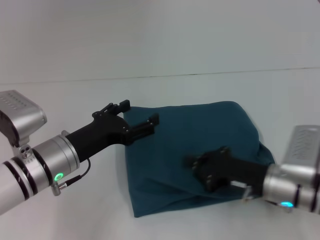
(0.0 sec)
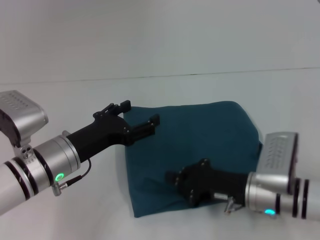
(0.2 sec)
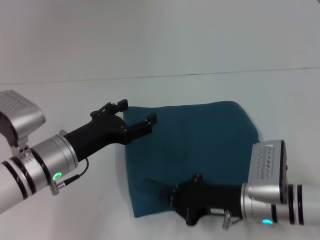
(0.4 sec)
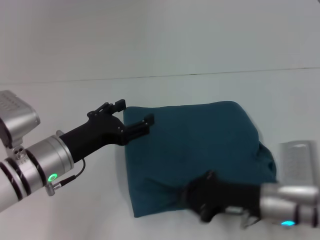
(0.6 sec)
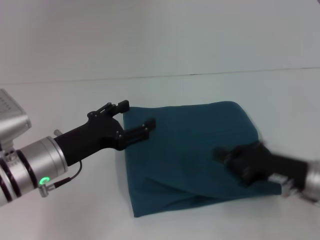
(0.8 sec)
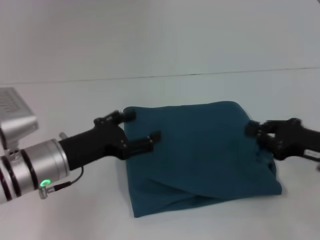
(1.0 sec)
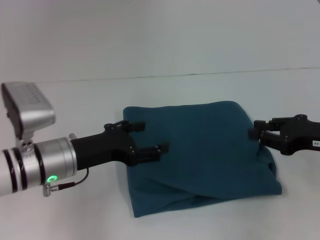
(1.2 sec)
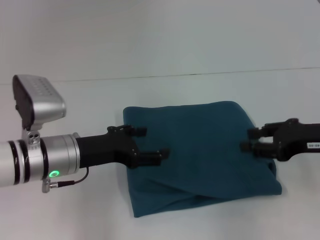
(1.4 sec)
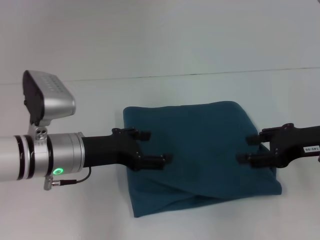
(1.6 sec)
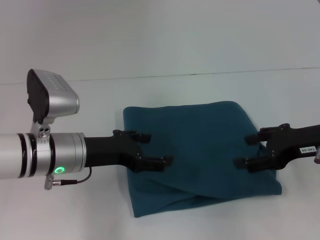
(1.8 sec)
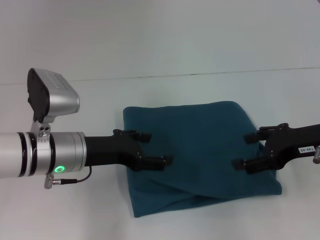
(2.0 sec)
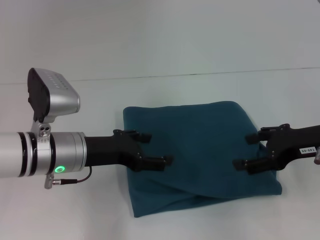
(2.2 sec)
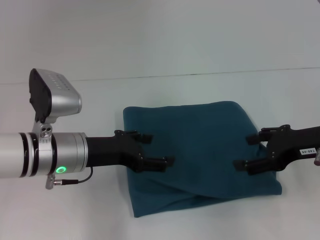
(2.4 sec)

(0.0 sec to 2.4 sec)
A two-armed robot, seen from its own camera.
0.0 sec - 1.2 sec: The right gripper moves to the right and upward, approximately 15 cm.
1.2 sec - 2.4 sec: The right gripper opens its fingers.
